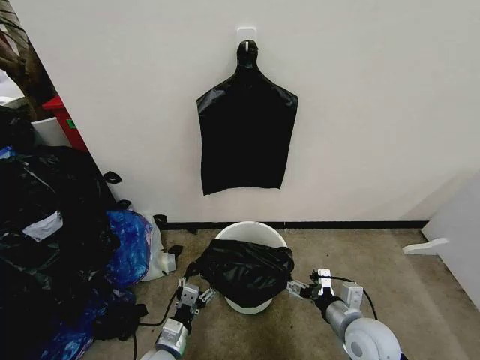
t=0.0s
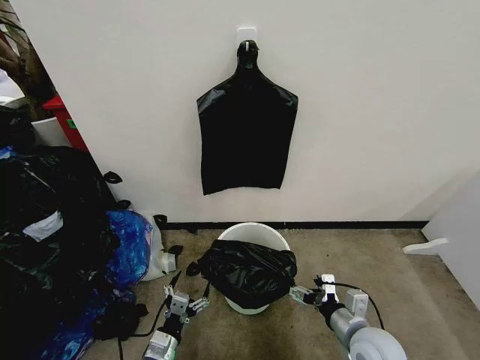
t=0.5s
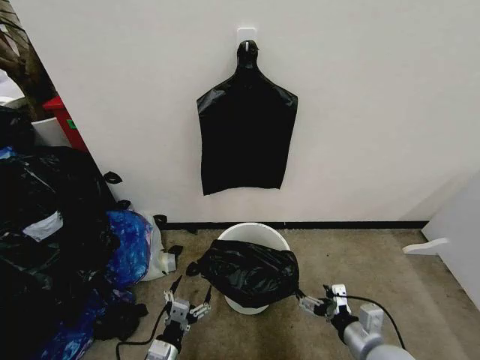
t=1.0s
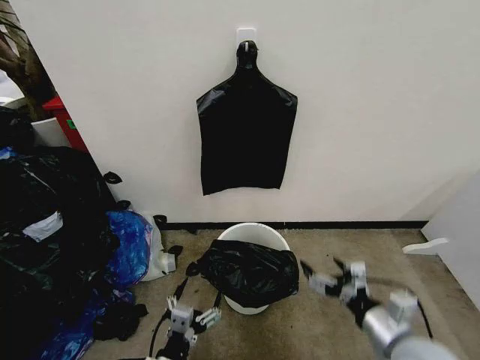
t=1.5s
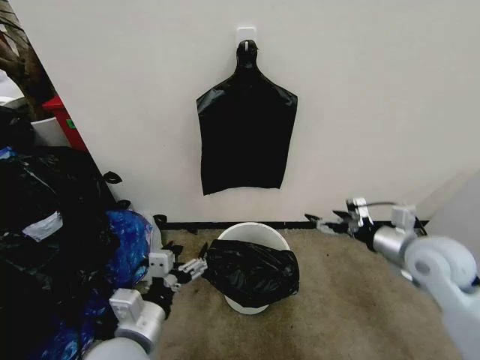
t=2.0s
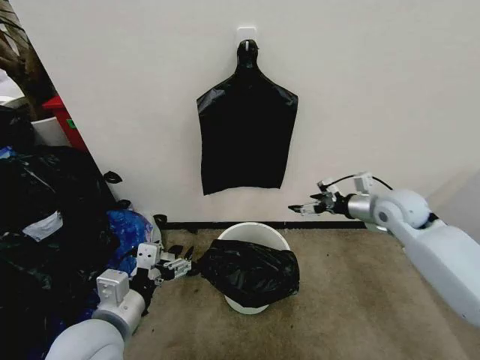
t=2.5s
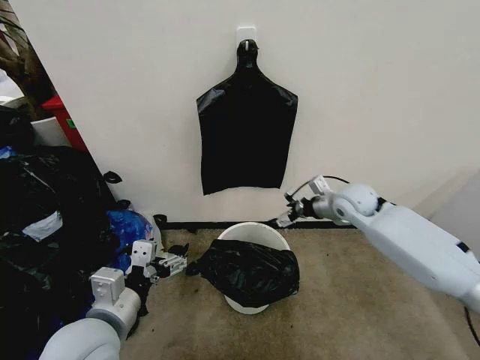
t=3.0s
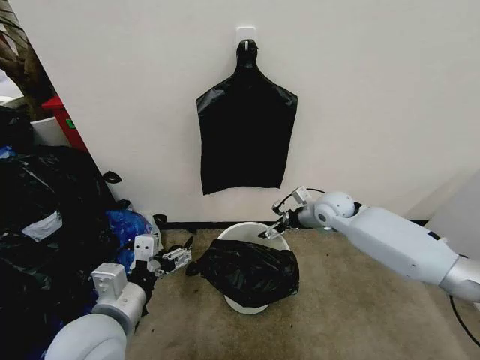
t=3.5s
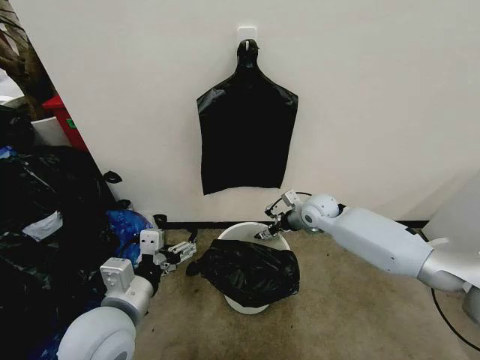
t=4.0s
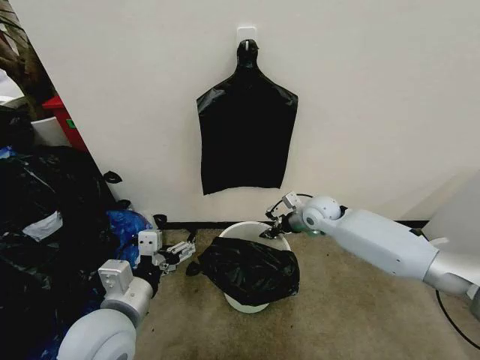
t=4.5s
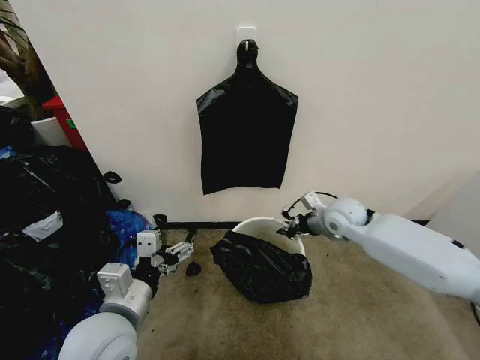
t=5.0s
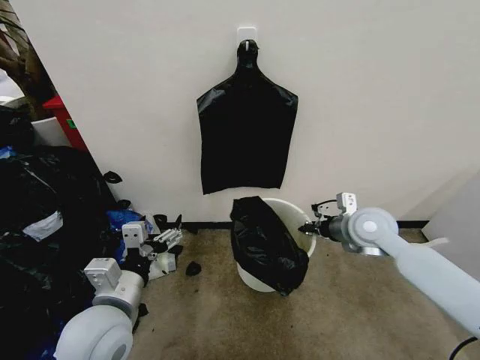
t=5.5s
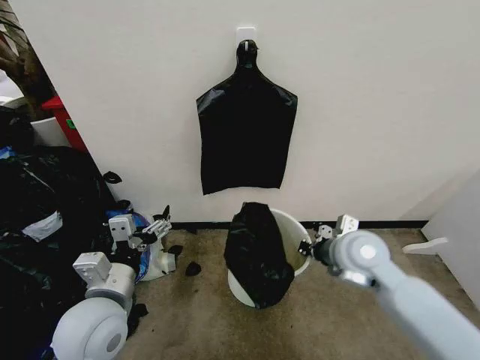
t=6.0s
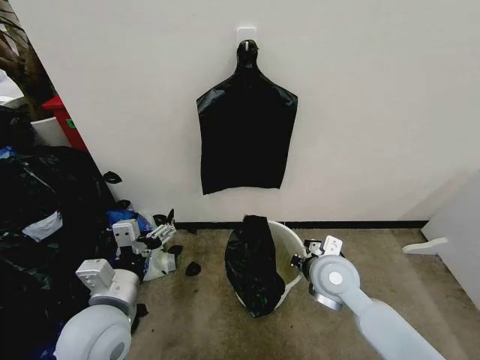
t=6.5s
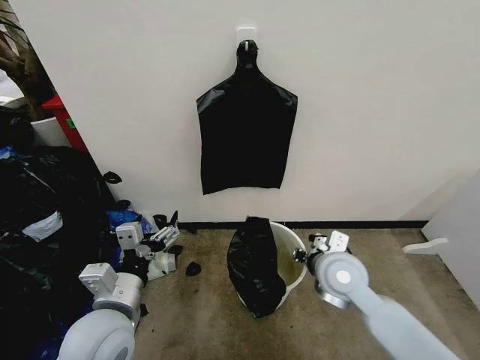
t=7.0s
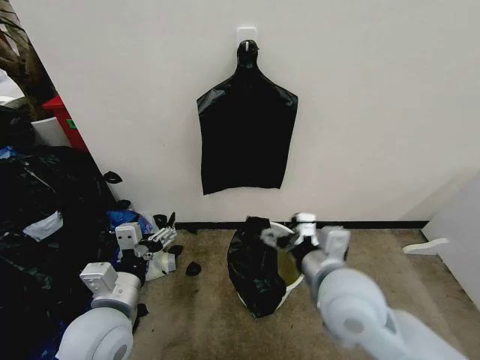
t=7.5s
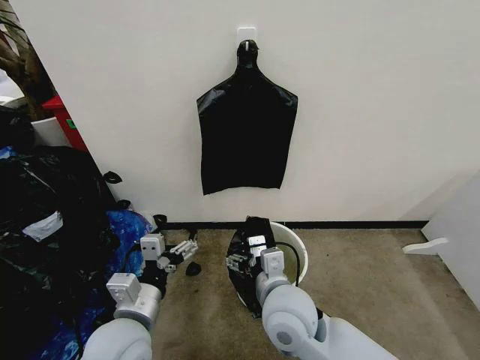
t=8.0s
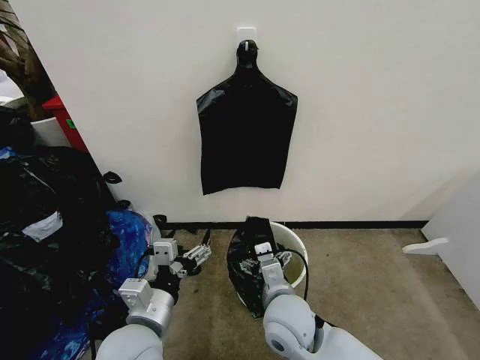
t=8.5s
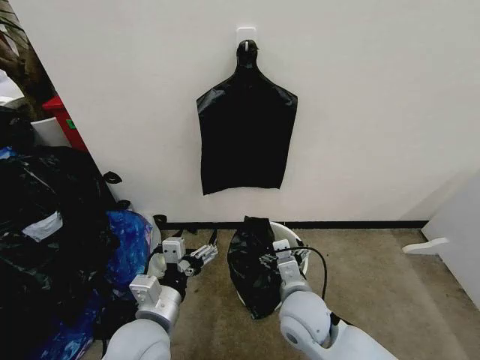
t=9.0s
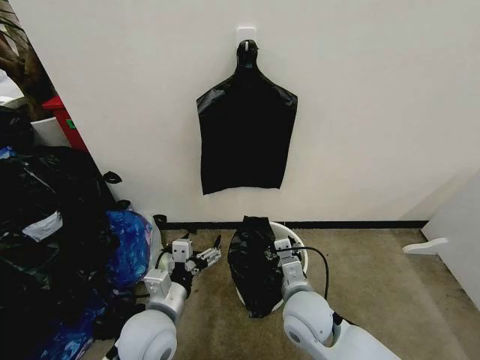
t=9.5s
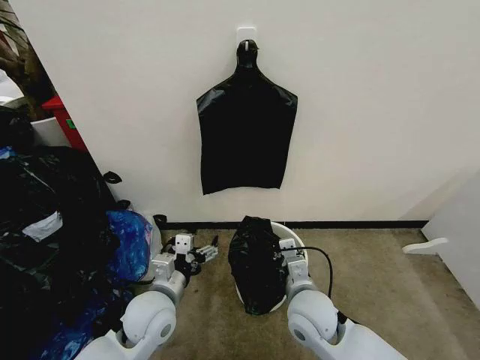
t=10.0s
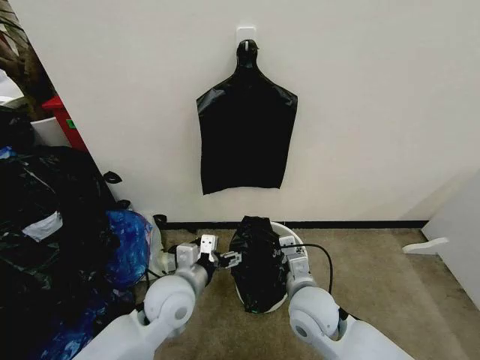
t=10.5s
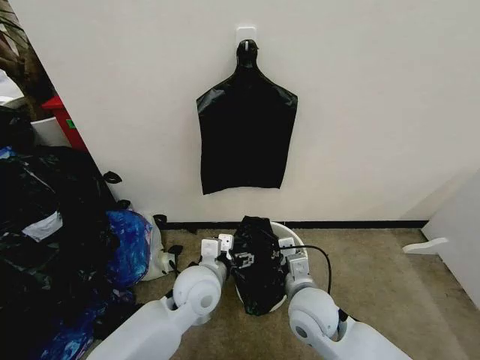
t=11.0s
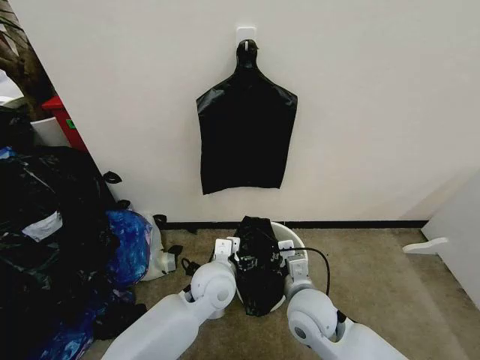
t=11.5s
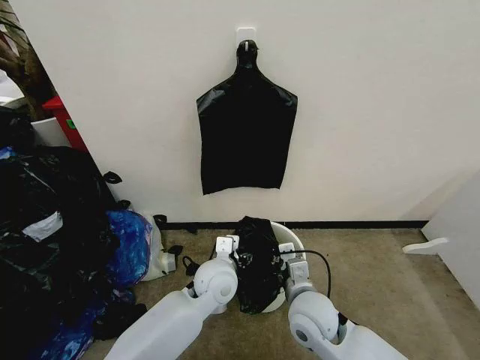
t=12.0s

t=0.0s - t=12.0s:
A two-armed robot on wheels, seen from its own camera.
Task of the whole recording: Place the garbage bag over the trash bin.
t=0.0s - t=2.0s: The left gripper goes approximately 25 cm upward; the right gripper goes roughly 20 cm upward, forward and to the right.
t=2.0s - t=4.0s: The right gripper is displaced forward, to the left and downward by some 25 cm; the left gripper changes place by approximately 5 cm.
t=4.0s - t=6.0s: The right gripper travels backward and upward by about 20 cm, and closes.
t=6.0s - t=8.0s: The right gripper travels to the left and backward by about 20 cm, and opens its fingers. The left gripper moves some 5 cm.
t=8.0s - t=10.0s: The left gripper is displaced forward and downward by some 10 cm; the right gripper goes approximately 10 cm downward and to the right, and closes.
t=10.0s - t=12.0s: The left gripper moves to the right and forward, roughly 15 cm.

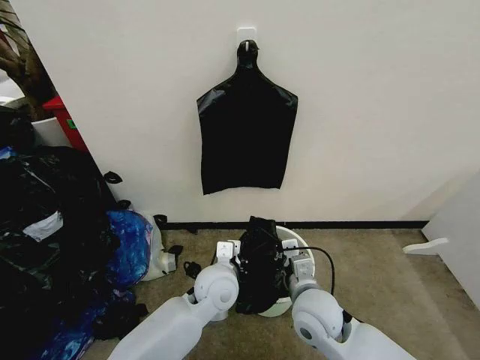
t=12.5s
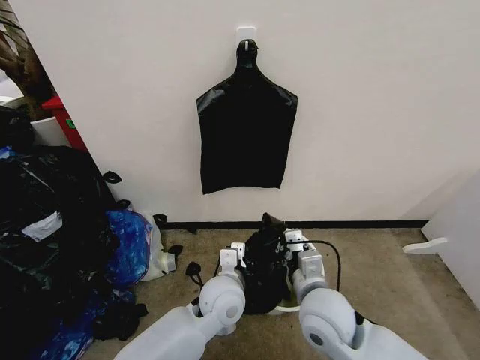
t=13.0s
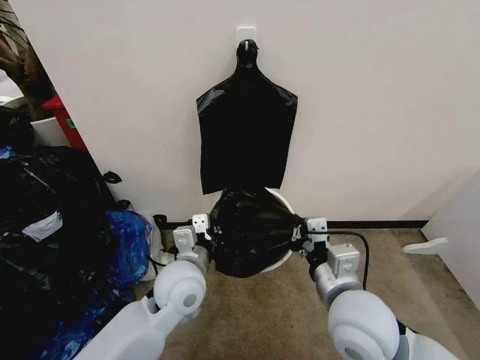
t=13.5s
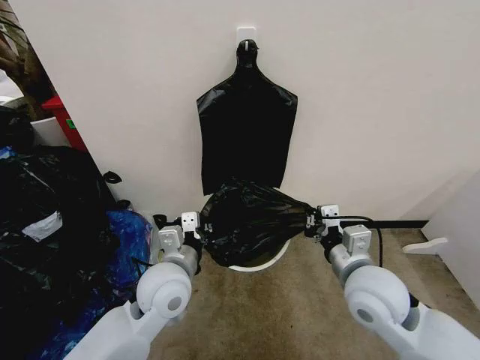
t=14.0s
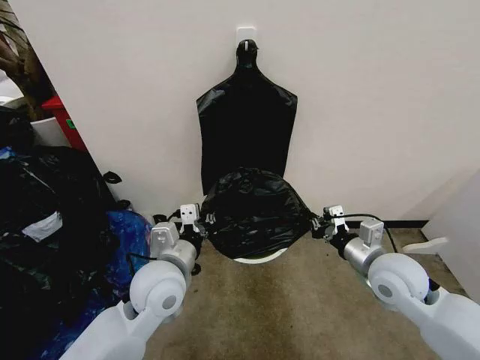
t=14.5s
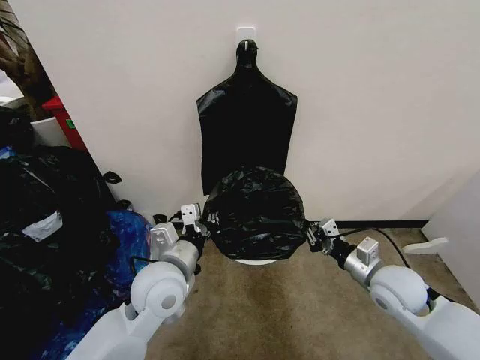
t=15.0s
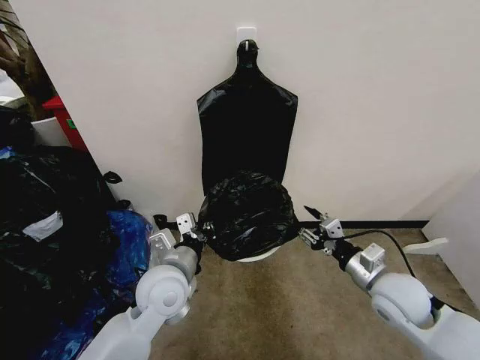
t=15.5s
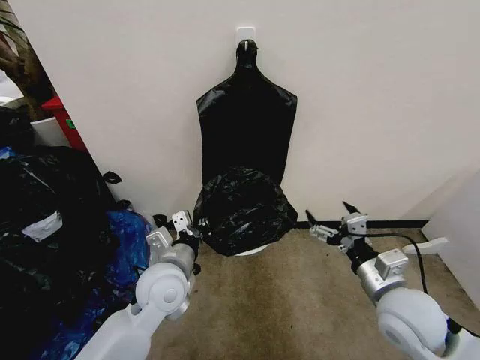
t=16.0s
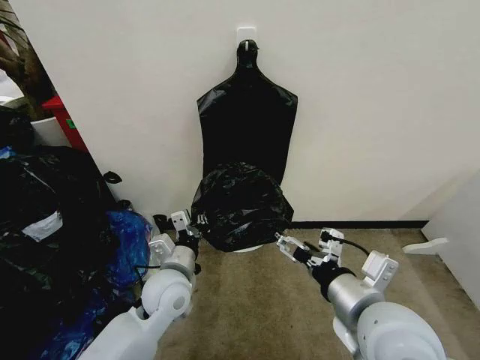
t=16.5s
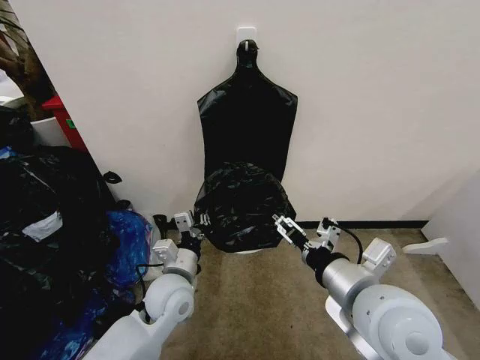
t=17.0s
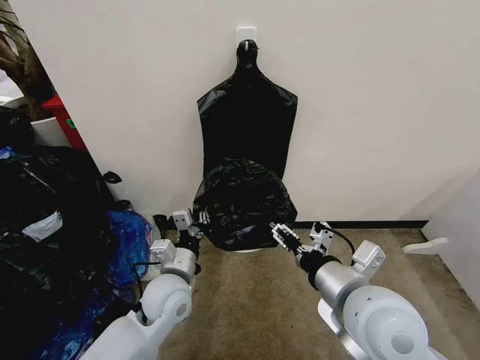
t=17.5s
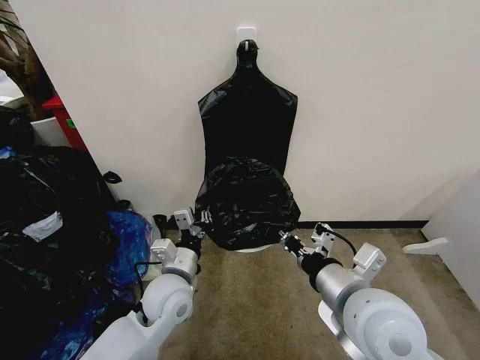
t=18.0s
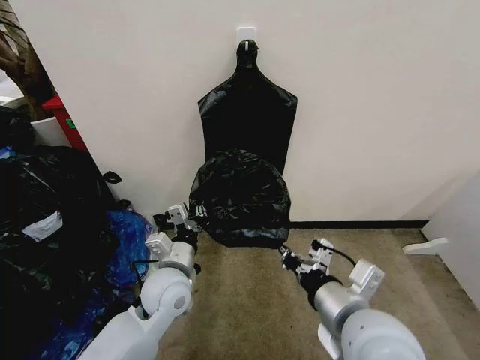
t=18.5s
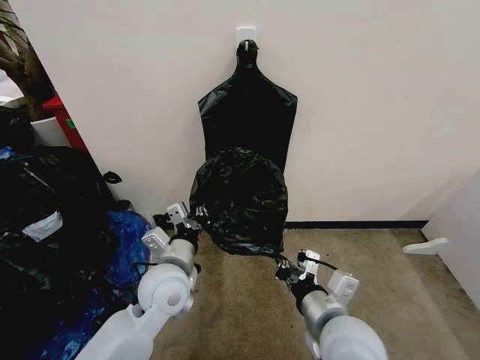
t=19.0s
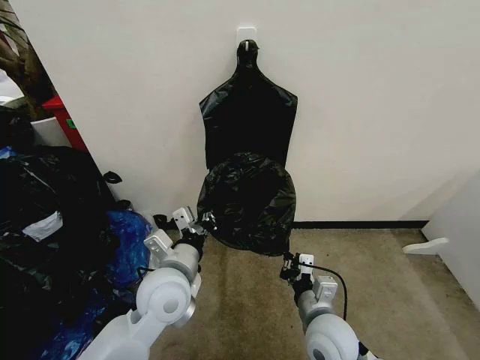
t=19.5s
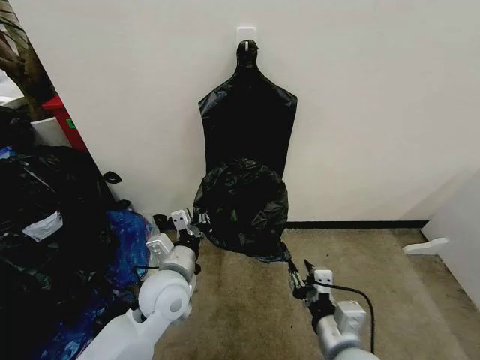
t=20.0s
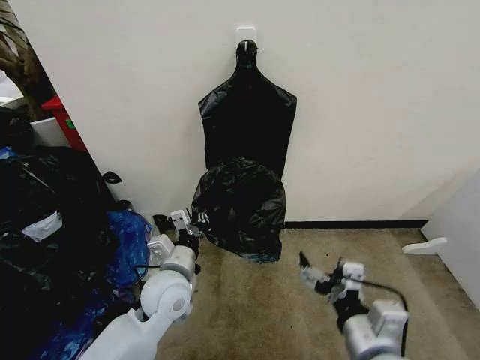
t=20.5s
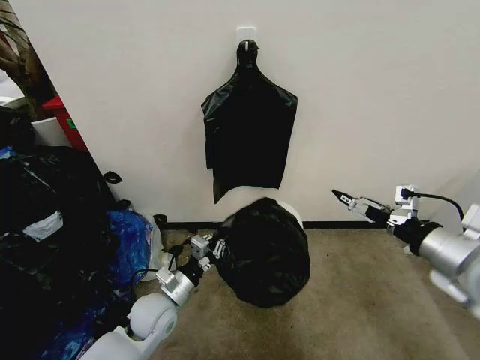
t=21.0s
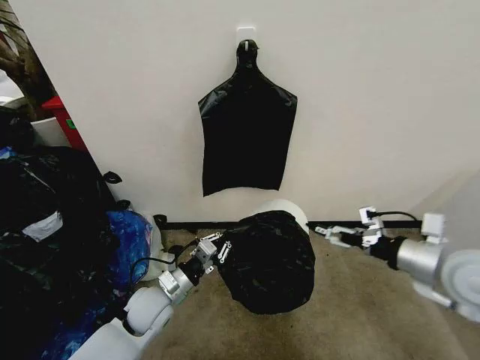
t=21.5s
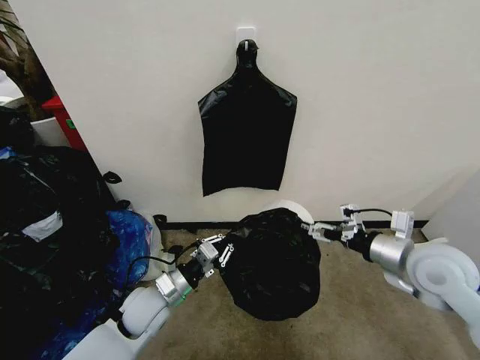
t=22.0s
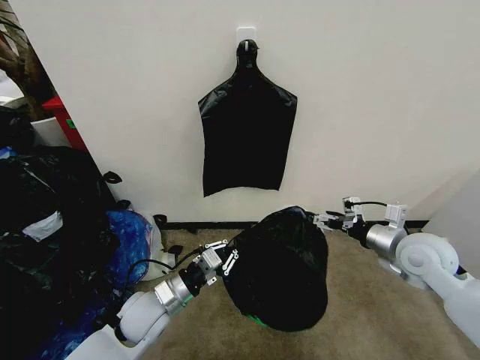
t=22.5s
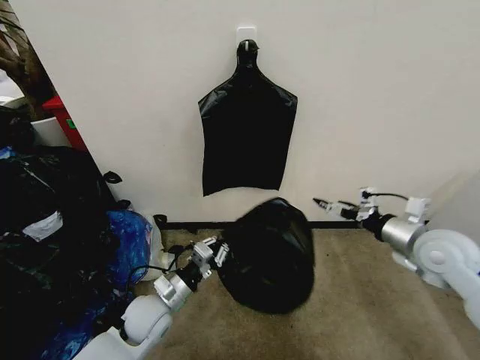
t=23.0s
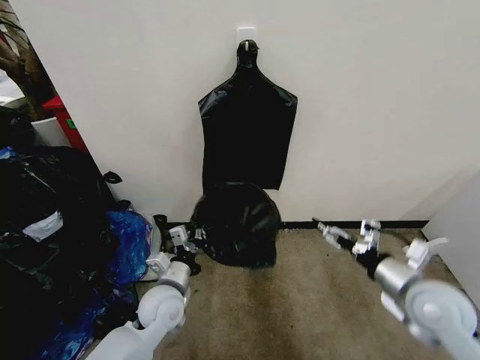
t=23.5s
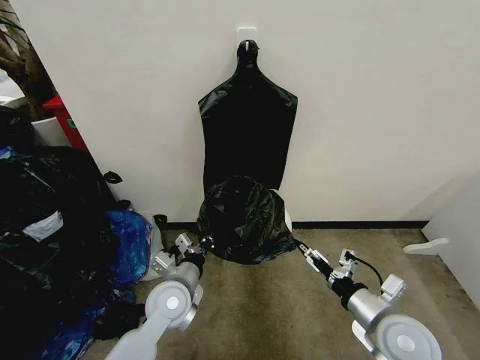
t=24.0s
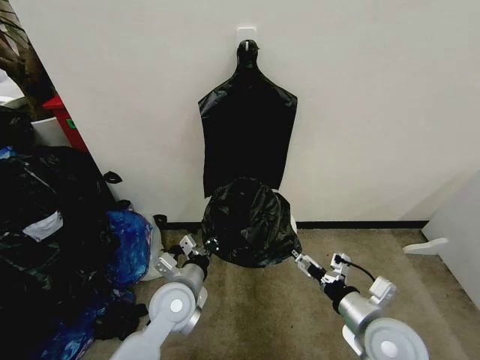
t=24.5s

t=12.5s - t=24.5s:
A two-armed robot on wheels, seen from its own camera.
Task of the whole recording: Place the garbage bag over the trash bin.
t=12.5s - t=14.5s: The right gripper moves to the right and upward, approximately 15 cm, while the left gripper heads to the left and upward, covering roughly 15 cm.
t=14.5s - t=16.5s: The right gripper travels backward, to the left and upward by approximately 15 cm, and opens its fingers. The left gripper heads downward, covering roughly 5 cm.
t=16.5s - t=18.5s: The right gripper closes its fingers.
t=18.5s - t=20.5s: The right gripper travels backward by some 5 cm, reaches about 15 cm downward, then returns, and opens its fingers.
t=20.5s - t=22.5s: The left gripper goes roughly 10 cm downward and to the left. Meanwhile the right gripper moves forward and to the right, some 25 cm.
t=22.5s - t=24.5s: The left gripper shifts some 5 cm to the right. Meanwhile the right gripper moves backward, to the left and downward, roughly 20 cm.

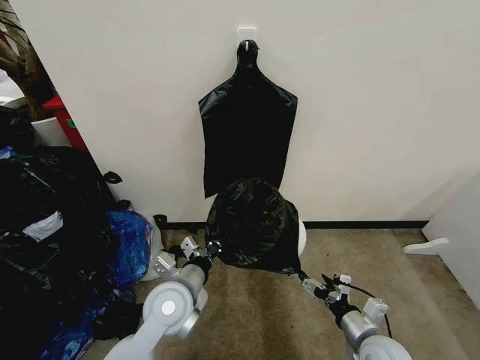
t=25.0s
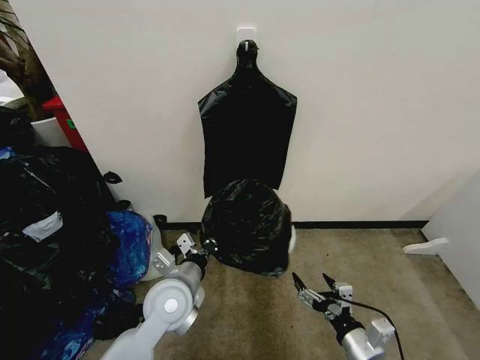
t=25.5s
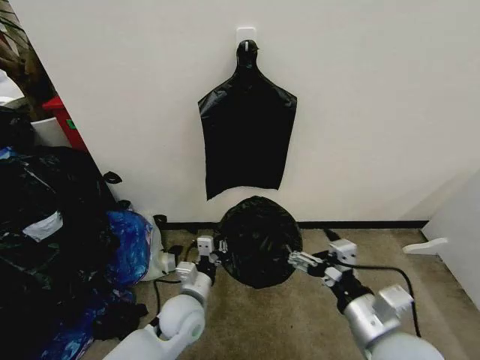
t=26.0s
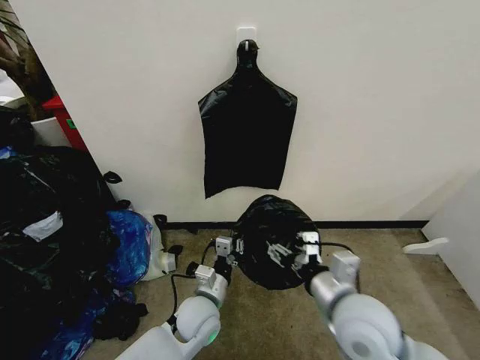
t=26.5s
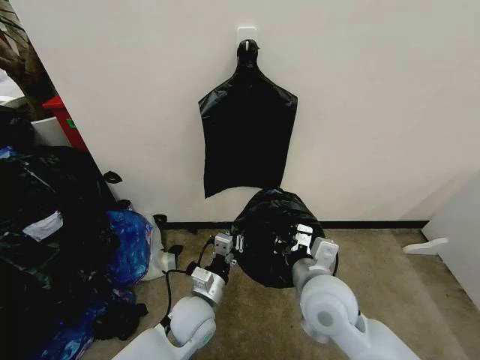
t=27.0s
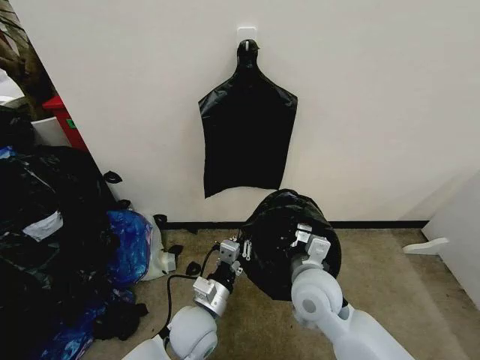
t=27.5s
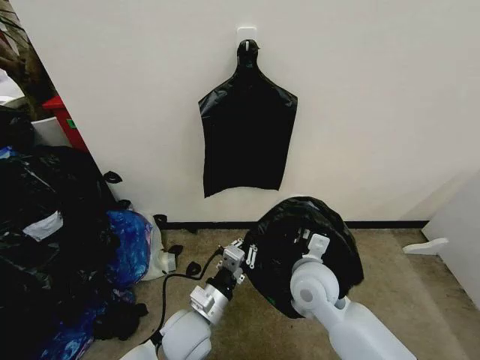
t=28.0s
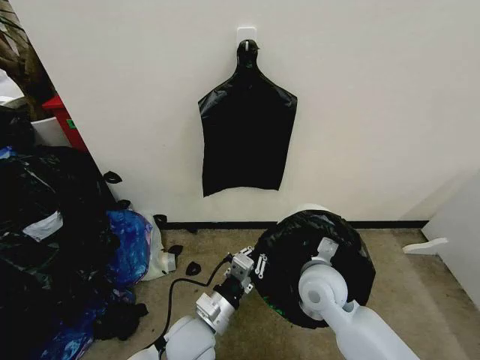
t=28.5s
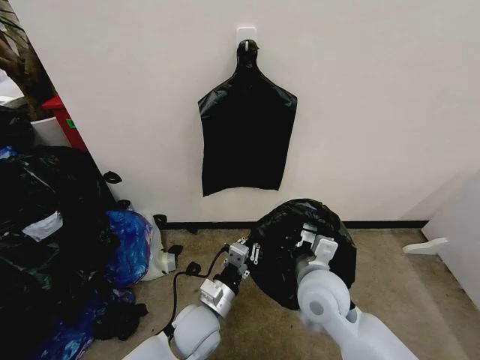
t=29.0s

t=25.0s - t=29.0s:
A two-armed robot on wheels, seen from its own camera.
Task of the whole recording: Place the garbage bag over the trash bin.
t=25.0s - t=27.0s: The right gripper is displaced upward and to the left by some 20 cm, and closes up; the left gripper is displaced downward by approximately 10 cm.
